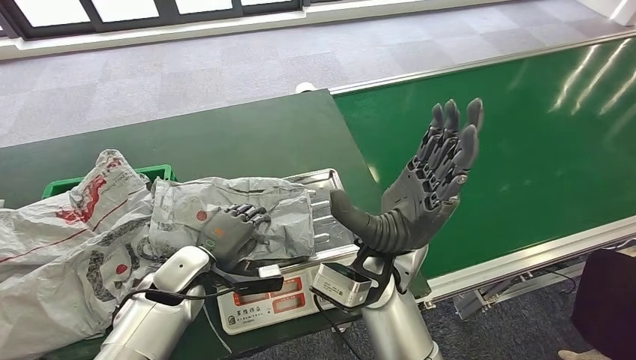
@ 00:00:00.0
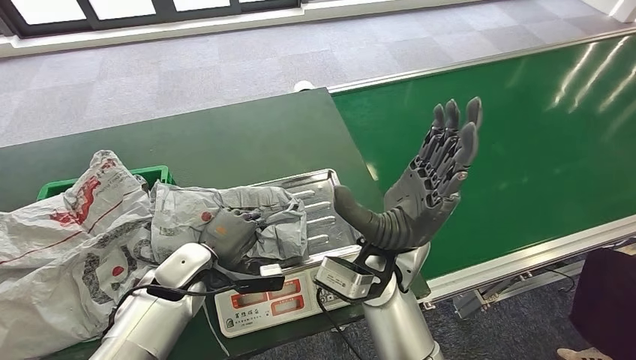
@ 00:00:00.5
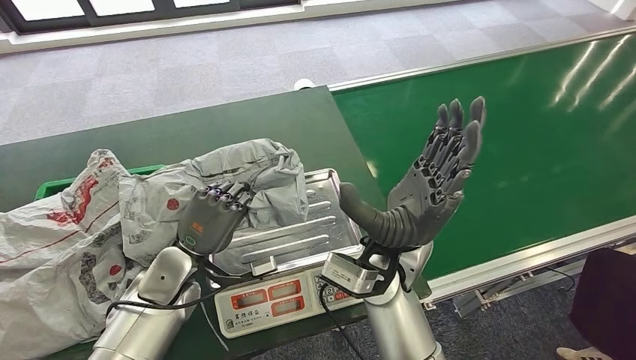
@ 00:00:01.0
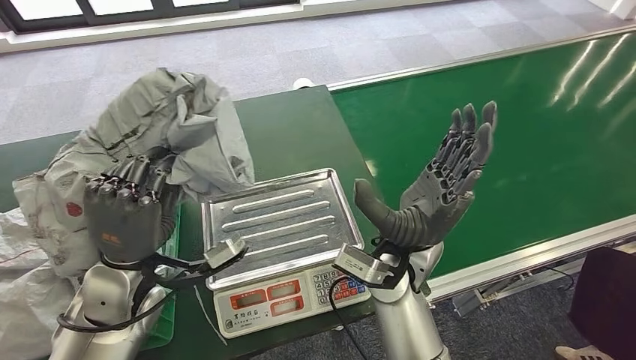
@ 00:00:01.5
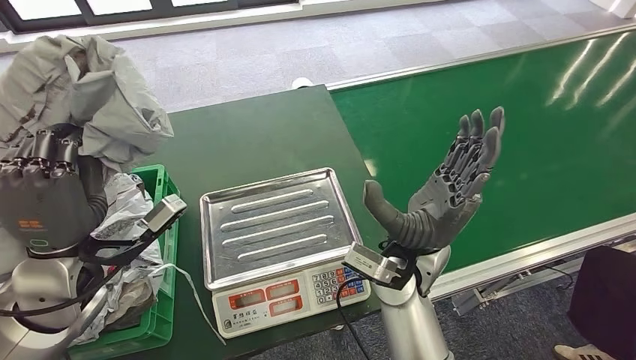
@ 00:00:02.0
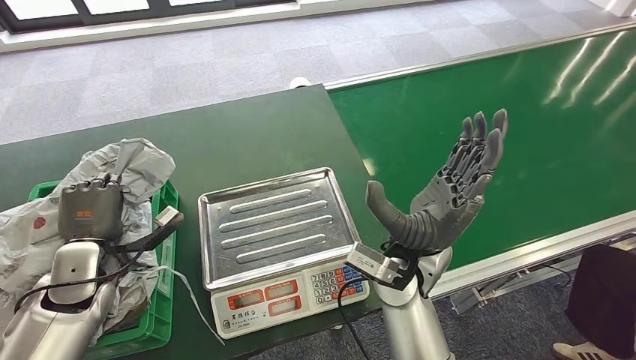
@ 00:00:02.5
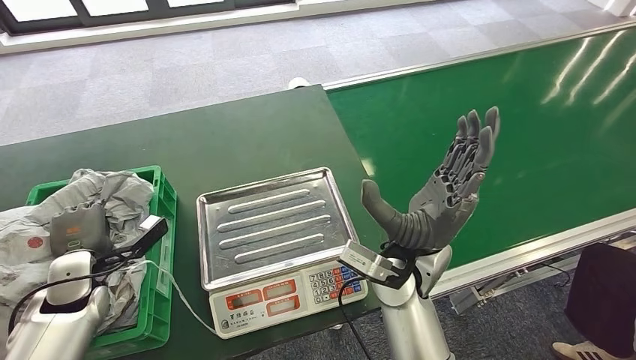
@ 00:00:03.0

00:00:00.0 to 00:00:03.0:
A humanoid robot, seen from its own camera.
Step, 00:00:00.0 to 00:00:01.5: Pick up the parcel from the inbound machine.
Step, 00:00:02.0 to 00:00:03.0: Place the parcel into the delivery box.
